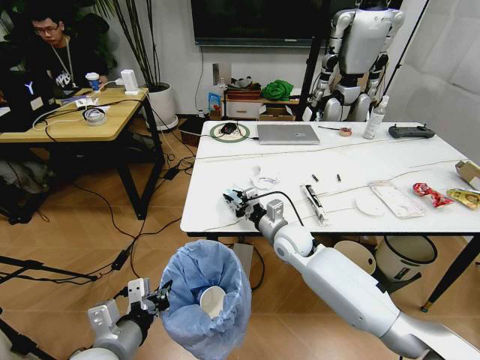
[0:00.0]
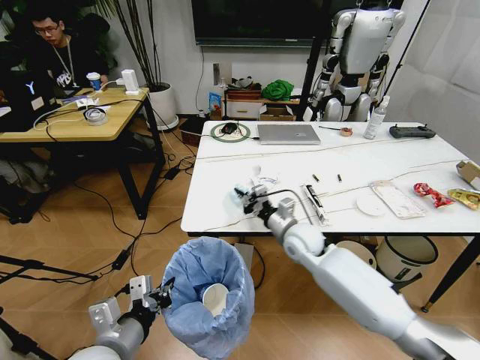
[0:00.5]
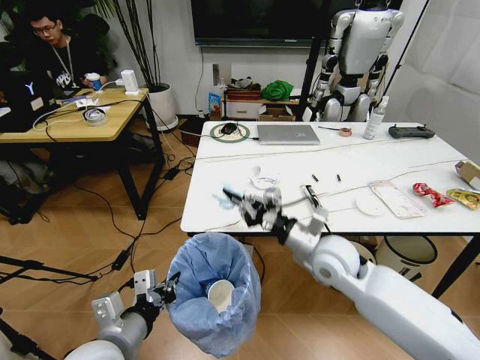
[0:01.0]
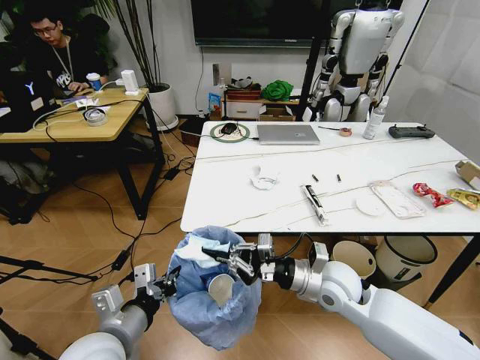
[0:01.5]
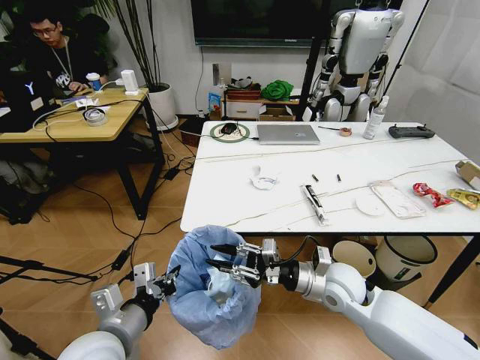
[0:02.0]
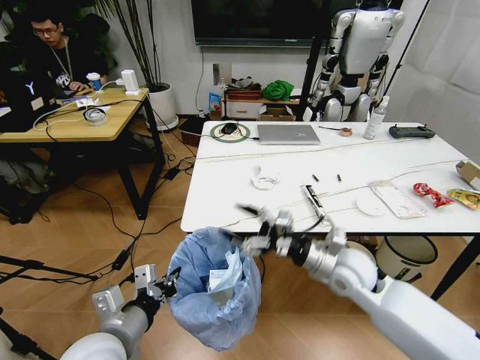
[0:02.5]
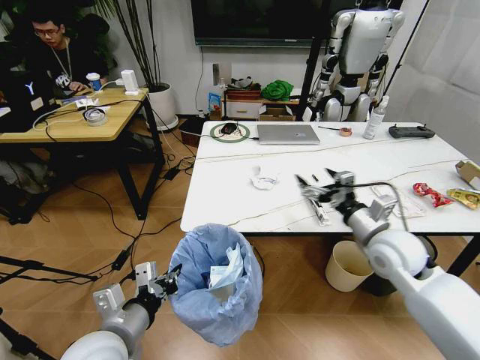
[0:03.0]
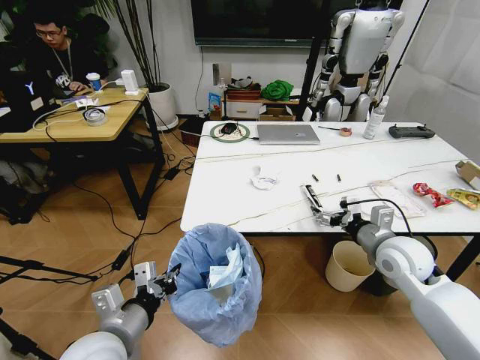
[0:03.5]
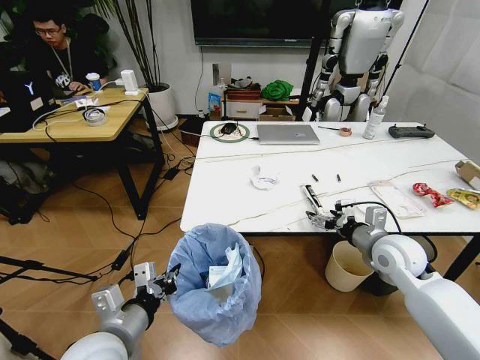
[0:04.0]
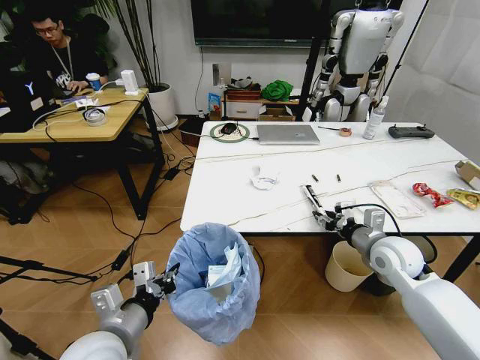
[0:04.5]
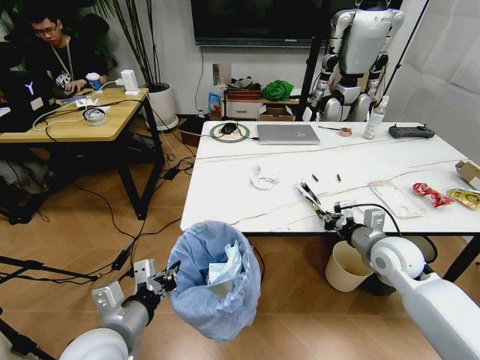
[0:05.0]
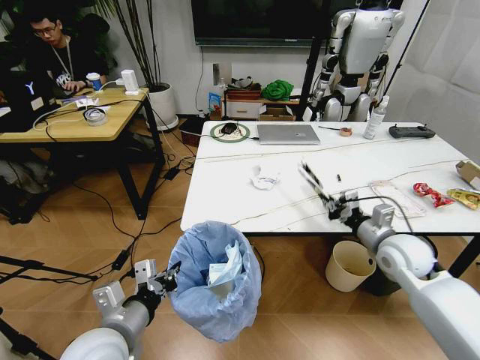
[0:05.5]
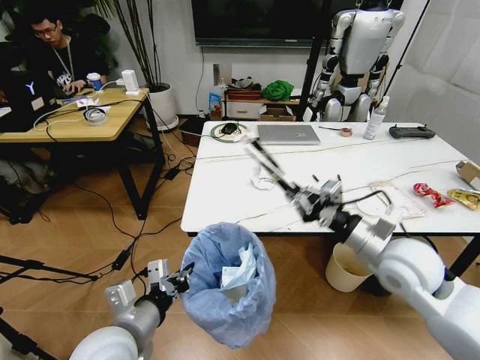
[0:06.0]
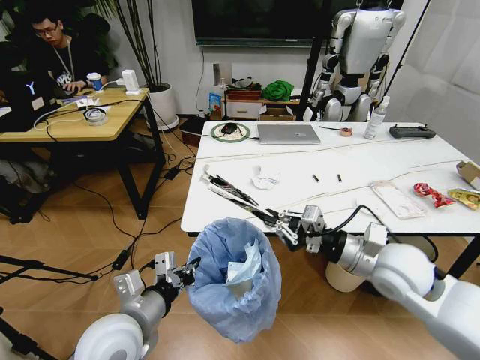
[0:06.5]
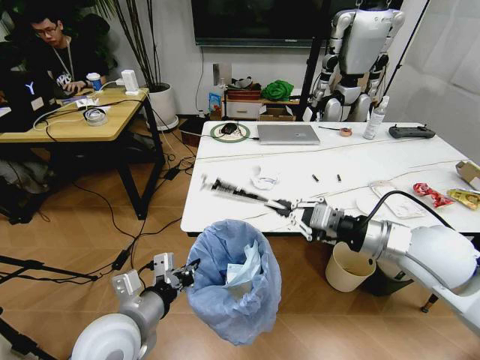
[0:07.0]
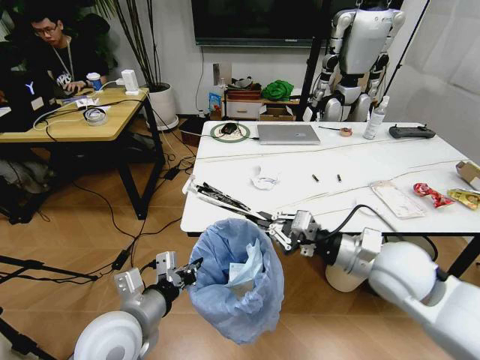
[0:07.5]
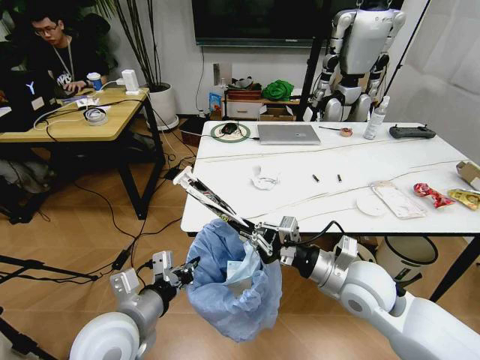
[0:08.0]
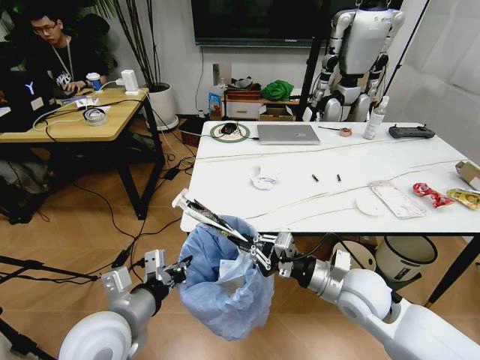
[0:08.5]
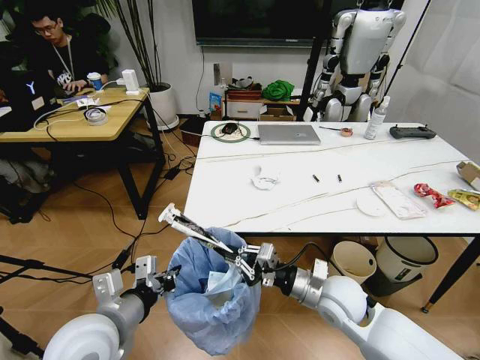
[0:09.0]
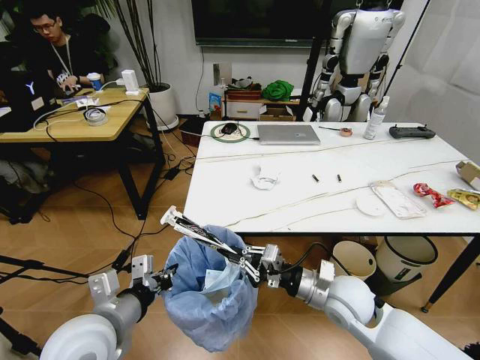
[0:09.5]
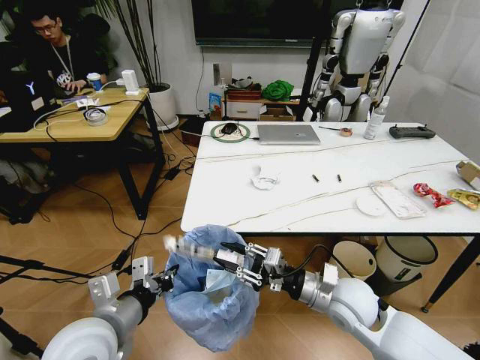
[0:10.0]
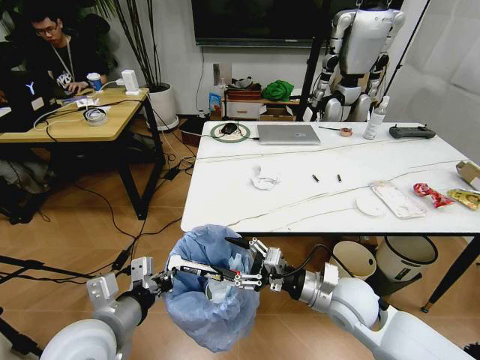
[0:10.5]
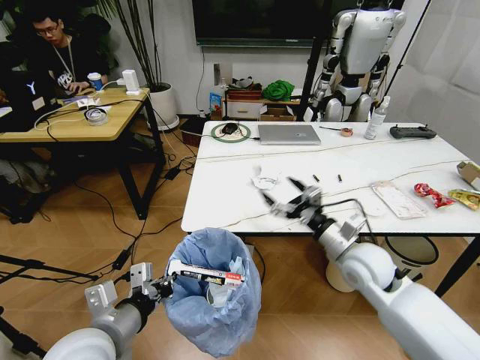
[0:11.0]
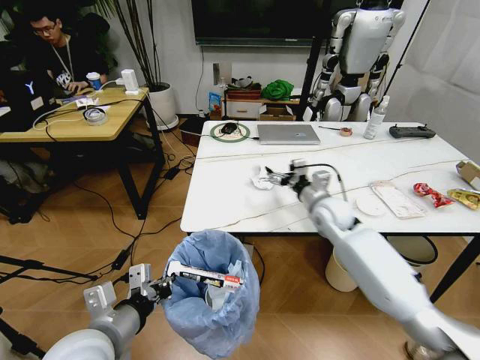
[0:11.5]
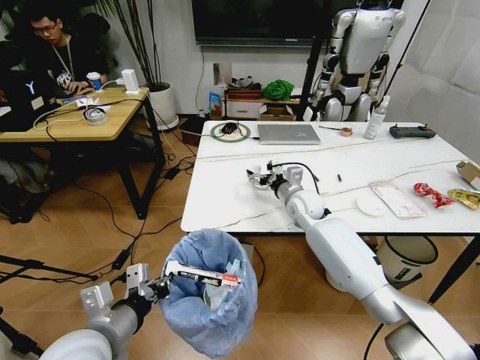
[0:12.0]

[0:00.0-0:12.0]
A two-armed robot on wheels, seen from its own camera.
Task of the whole recording: Pick up the trash bin and place the trash from the table into it.
0:00.0 to 0:02.0: The right gripper moves backward and to the right, roughly 15 cm.
0:02.0 to 0:04.0: The right gripper goes some 15 cm to the right, and opens.
0:04.0 to 0:06.0: The right gripper moves upward and backward, some 10 cm, and closes.
0:06.0 to 0:08.0: The right gripper is displaced to the left and downward by approximately 10 cm.
0:08.0 to 0:10.0: The right gripper travels downward by about 5 cm.
0:10.0 to 0:12.0: The right gripper heads forward, covering about 25 cm, and opens.

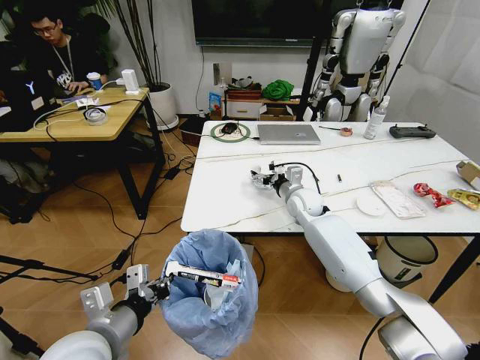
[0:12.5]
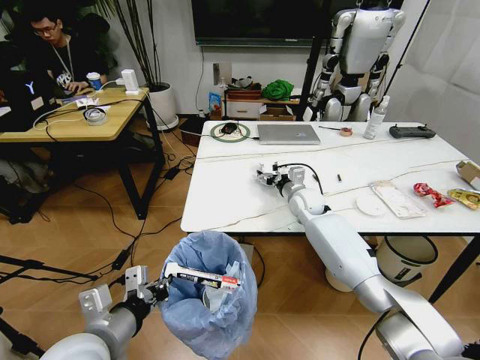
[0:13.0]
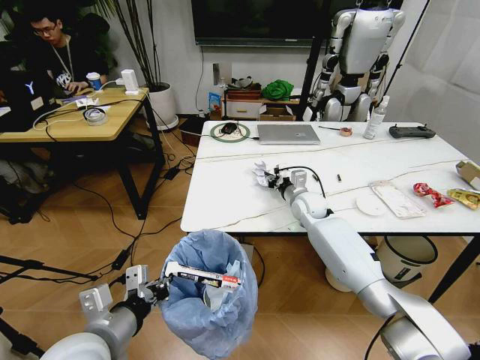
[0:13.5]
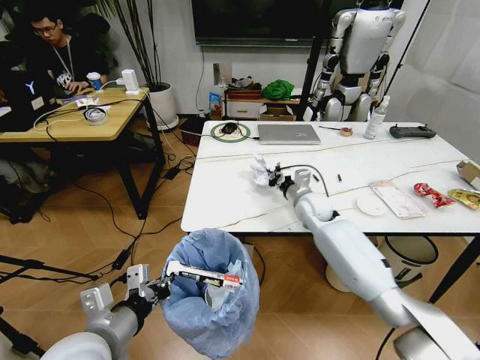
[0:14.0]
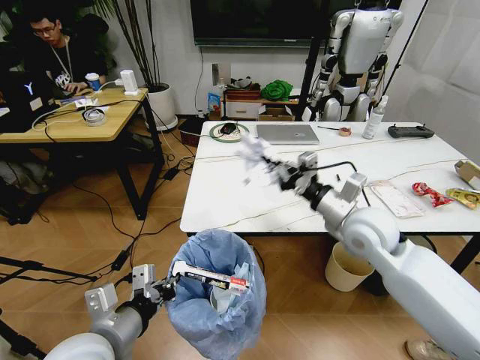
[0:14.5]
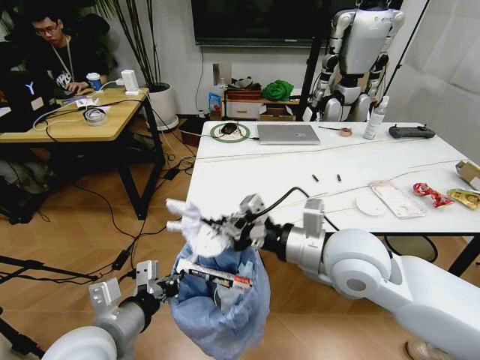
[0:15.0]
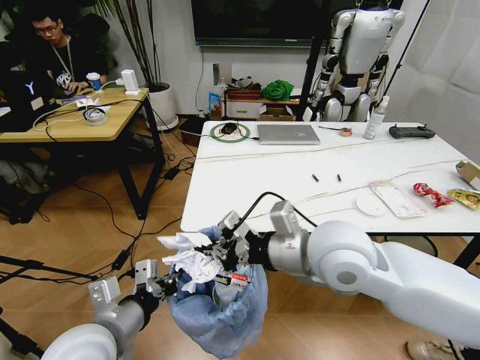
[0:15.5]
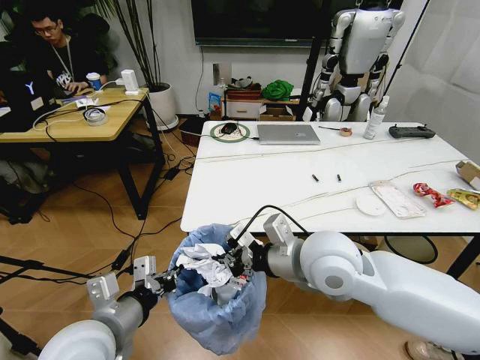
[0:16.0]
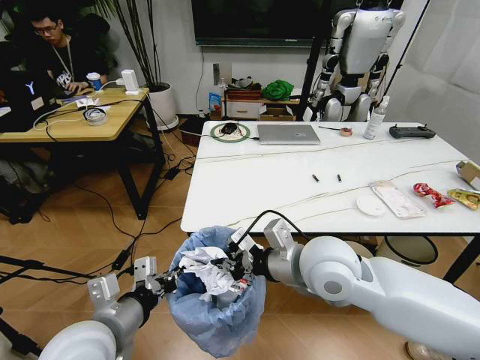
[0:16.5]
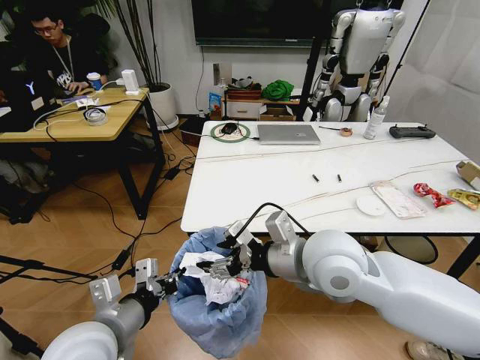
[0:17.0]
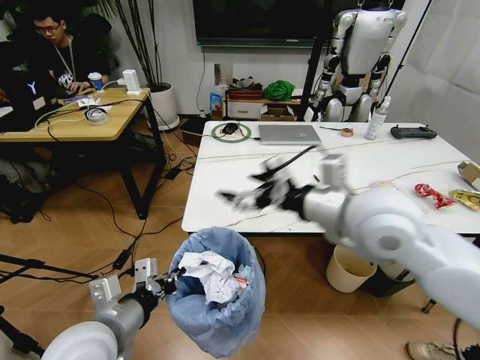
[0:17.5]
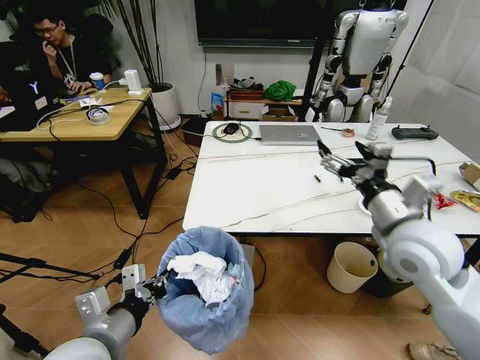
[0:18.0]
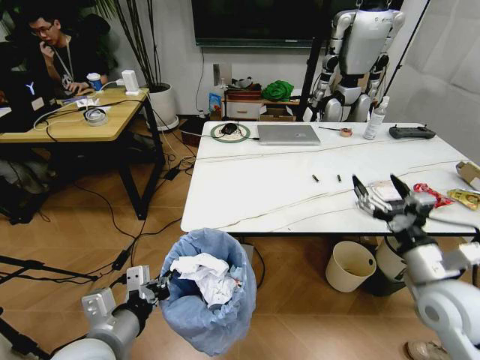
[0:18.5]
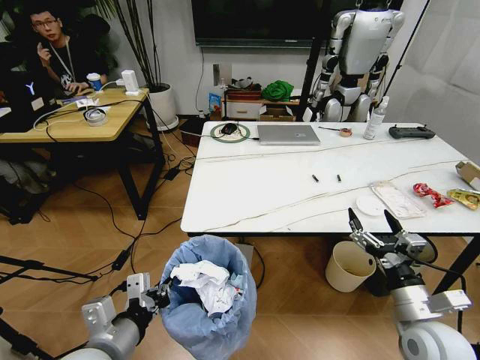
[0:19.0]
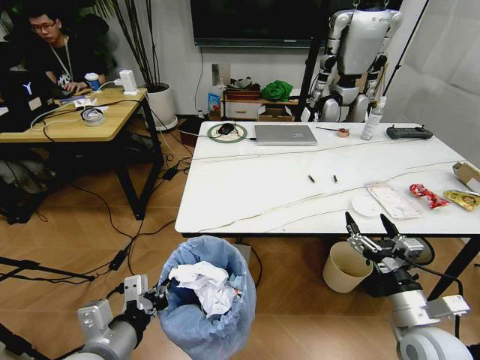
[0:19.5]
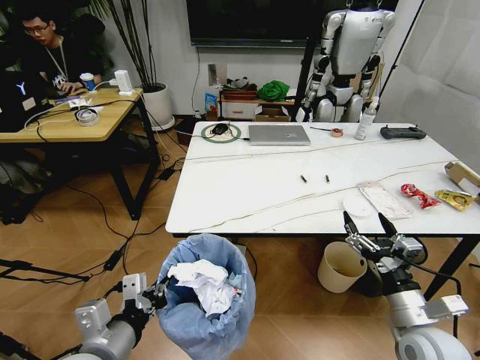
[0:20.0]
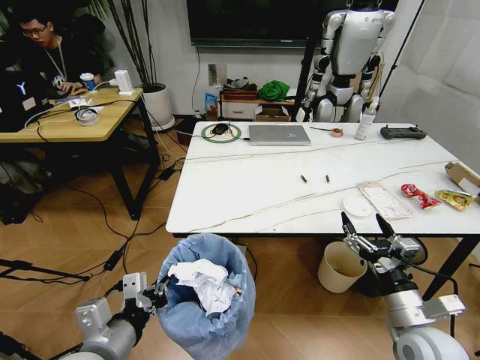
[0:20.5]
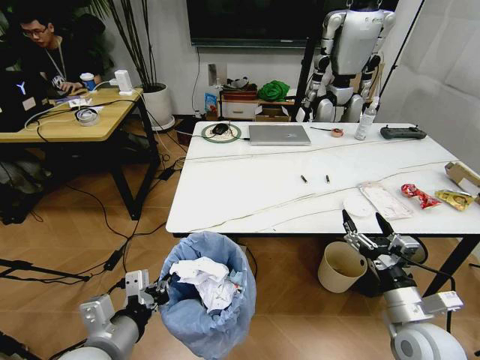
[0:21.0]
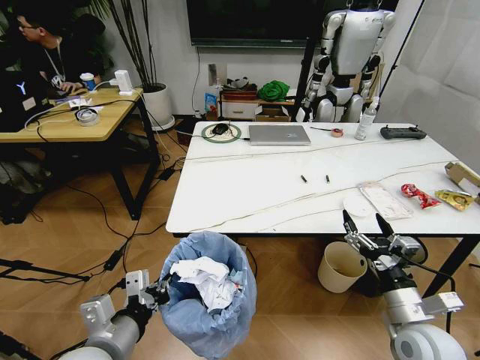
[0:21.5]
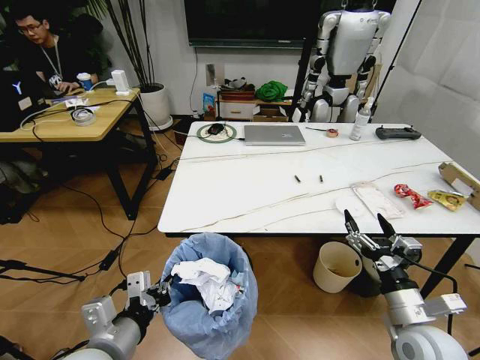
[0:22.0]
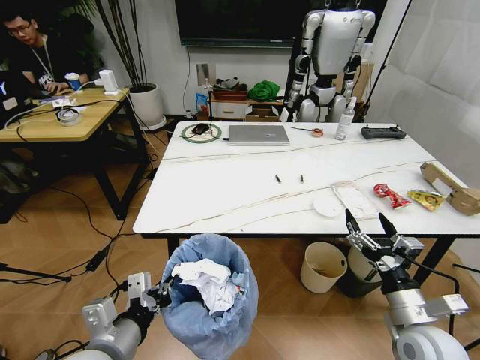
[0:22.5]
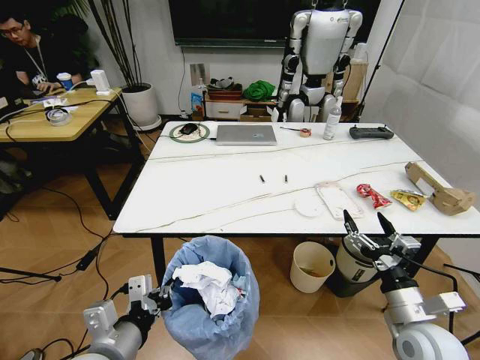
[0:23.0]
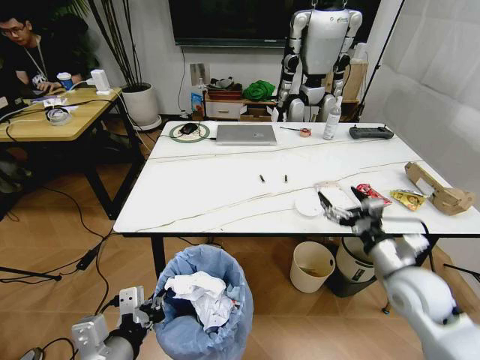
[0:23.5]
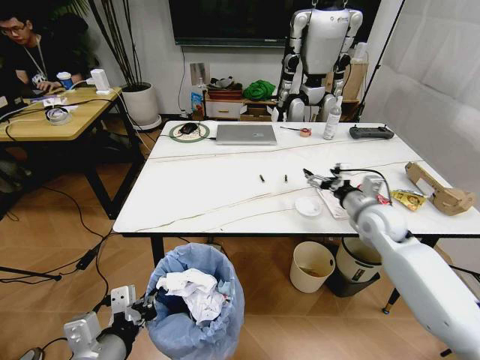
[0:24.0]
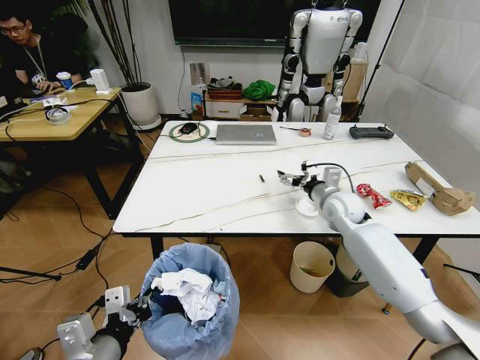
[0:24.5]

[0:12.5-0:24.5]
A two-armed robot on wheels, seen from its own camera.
Task of the whole recording: Pick up the trash bin and place the trash from the table into it.
0:12.5 to 0:14.5: The right gripper heads backward and upward, covering some 20 cm, and closes.
0:14.5 to 0:16.5: The right gripper moves to the left and backward, about 15 cm.
0:16.5 to 0:18.5: The right gripper travels to the right by some 20 cm, and opens its fingers.
0:18.5 to 0:20.5: The right gripper is displaced downward and backward by about 10 cm.
0:22.5 to 0:24.5: The right gripper heads forward, covering approximately 30 cm.

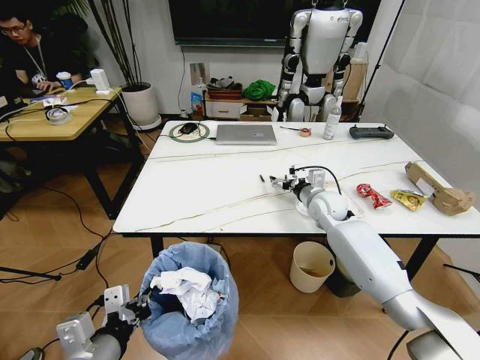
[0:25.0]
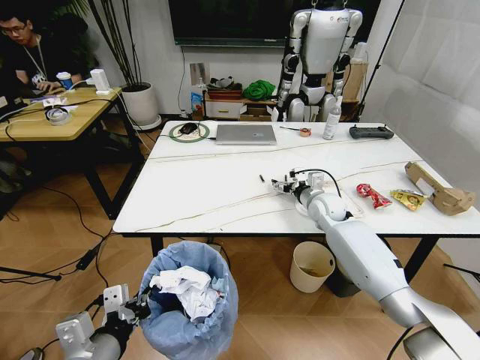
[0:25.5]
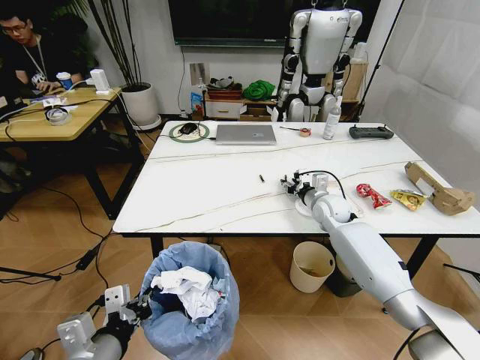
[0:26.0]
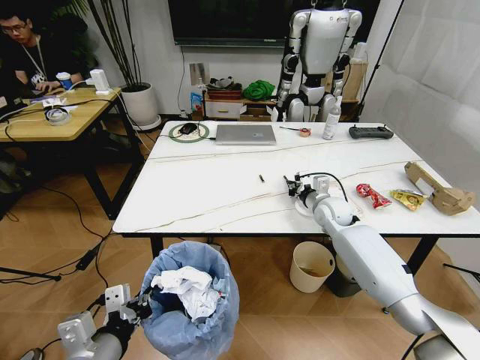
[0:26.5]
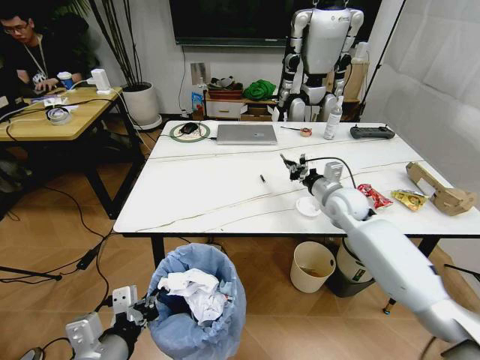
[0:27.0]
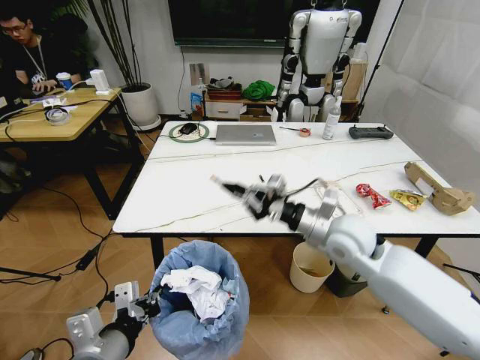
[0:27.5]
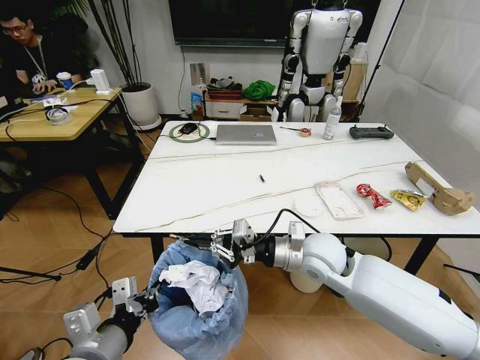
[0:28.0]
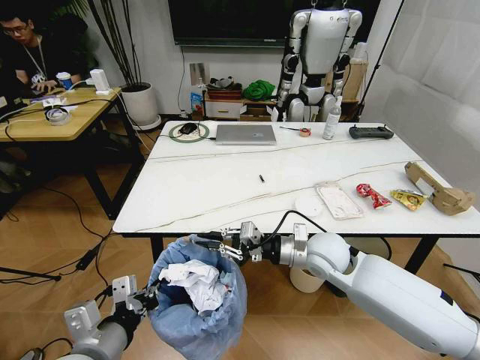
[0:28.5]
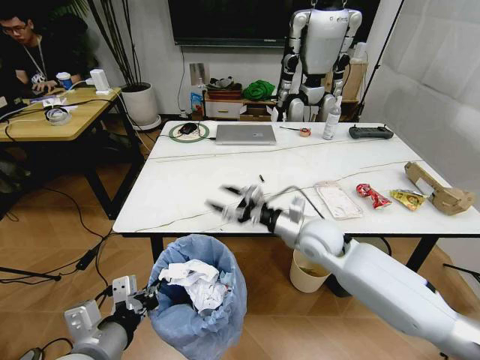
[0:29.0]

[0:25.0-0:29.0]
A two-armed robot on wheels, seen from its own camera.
Task of the whole recording: Pick up the trash bin and place the trash from the table into it.
0:25.0 to 0:27.0: The right gripper changes place by some 5 cm, and closes up.
0:27.0 to 0:29.0: The right gripper heads backward and to the left, covering about 15 cm, and opens up.
